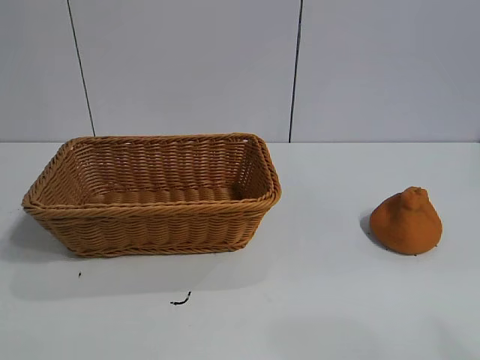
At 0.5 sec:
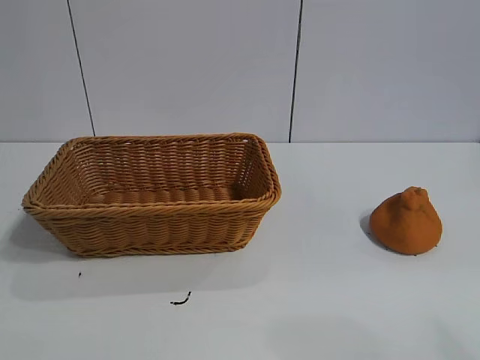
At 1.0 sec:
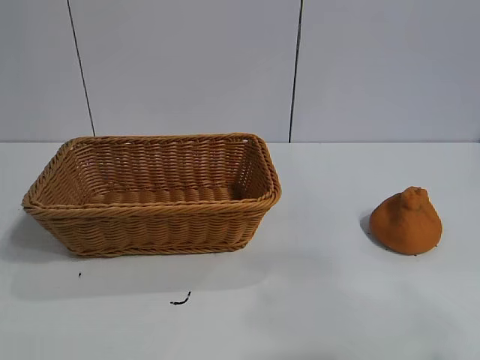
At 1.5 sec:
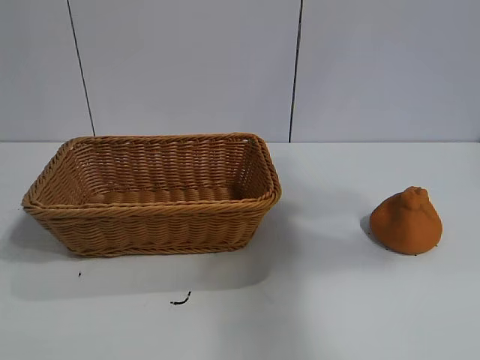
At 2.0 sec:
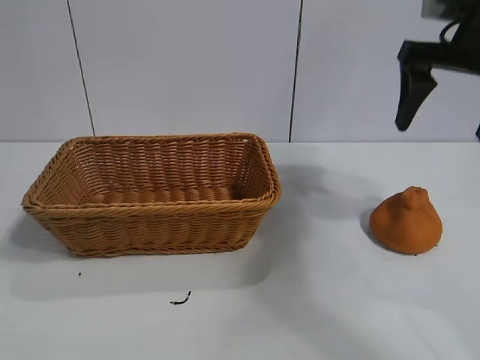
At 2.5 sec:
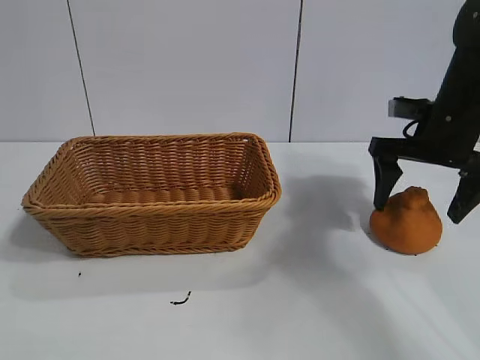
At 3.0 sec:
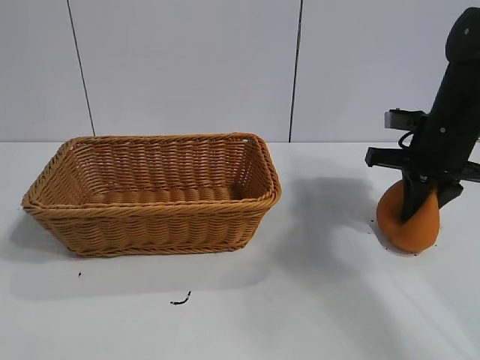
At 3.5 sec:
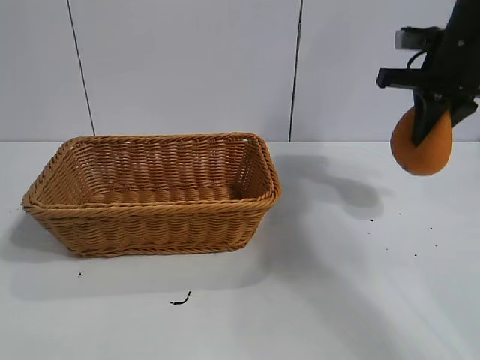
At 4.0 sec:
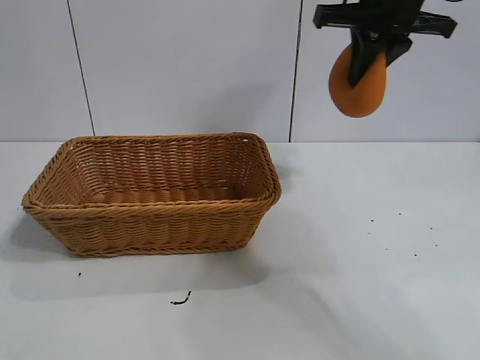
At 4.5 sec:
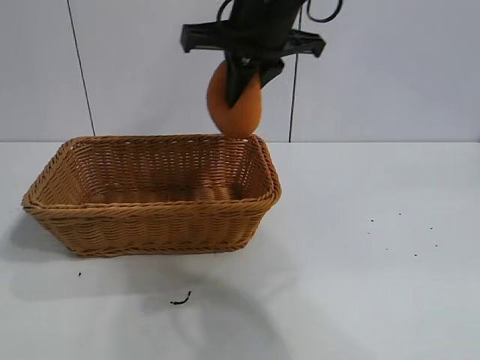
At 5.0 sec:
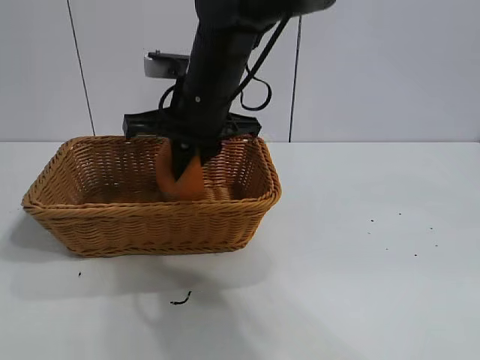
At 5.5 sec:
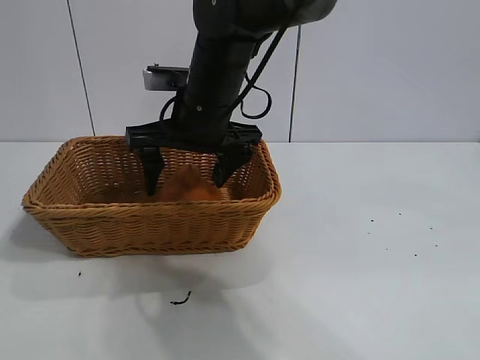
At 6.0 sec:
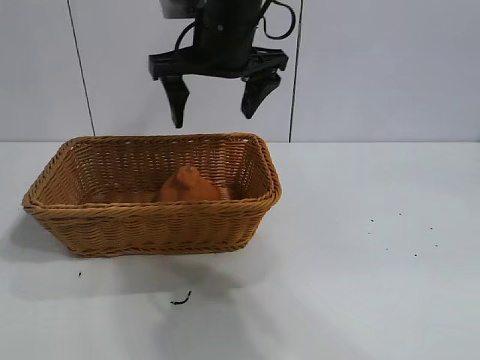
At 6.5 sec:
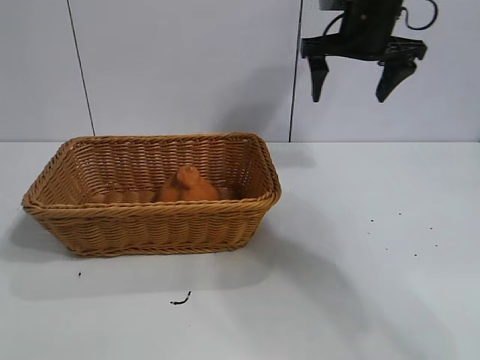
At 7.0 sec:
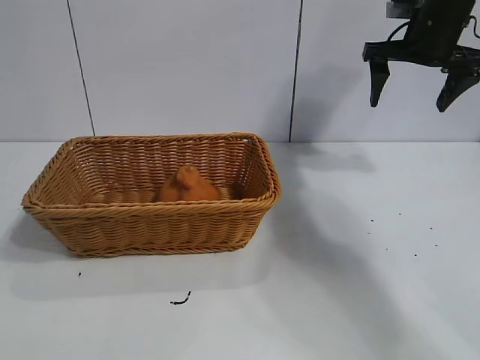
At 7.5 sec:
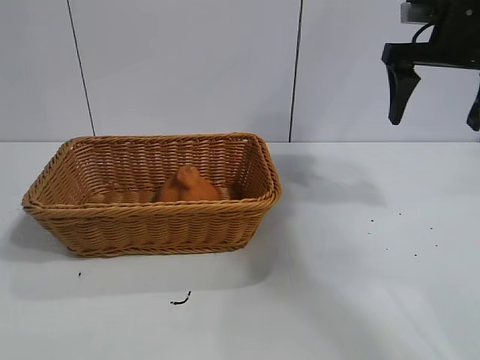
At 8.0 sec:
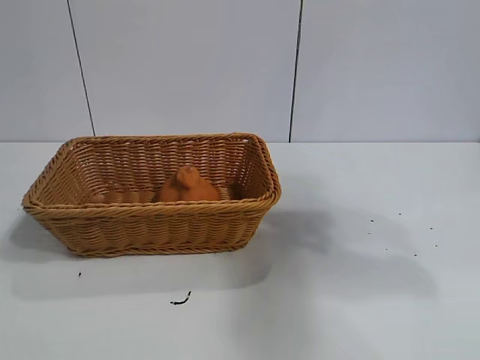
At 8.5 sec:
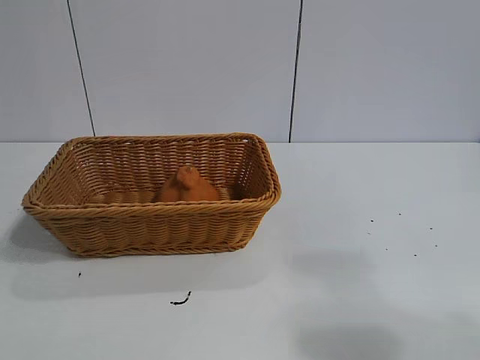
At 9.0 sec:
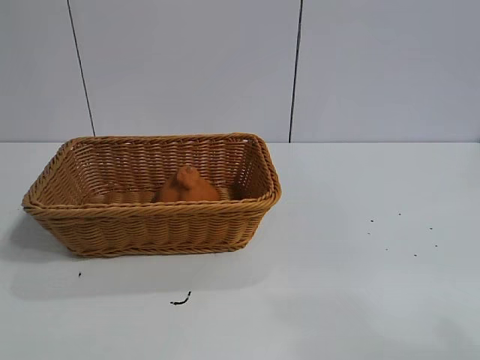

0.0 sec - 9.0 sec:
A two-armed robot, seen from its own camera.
Task of the whole recording: pick up the orange and put it into the basket.
Step, 1.0 sec - 2.5 sec: Grasp the orange with right gripper.
Step, 3.0 sec - 5.5 sec: Place the orange in the basket with right gripper.

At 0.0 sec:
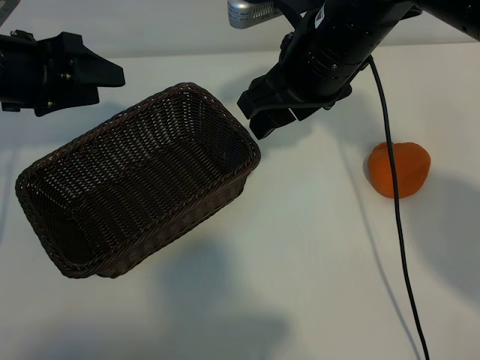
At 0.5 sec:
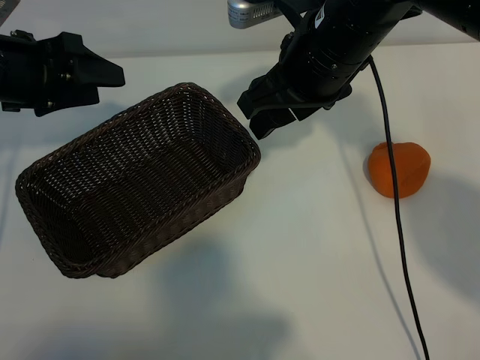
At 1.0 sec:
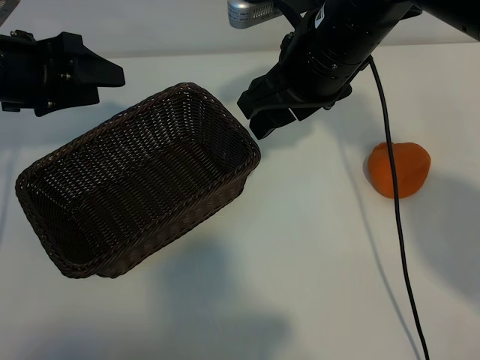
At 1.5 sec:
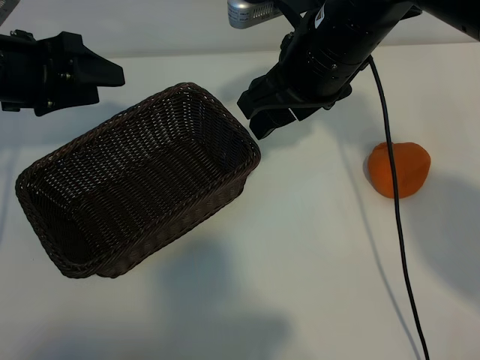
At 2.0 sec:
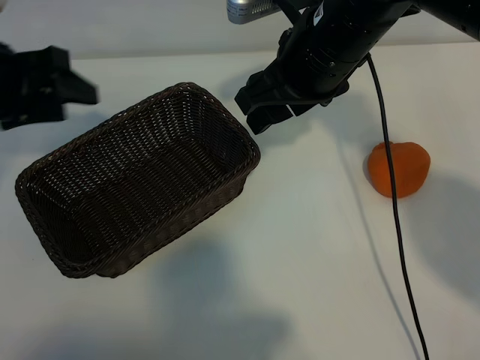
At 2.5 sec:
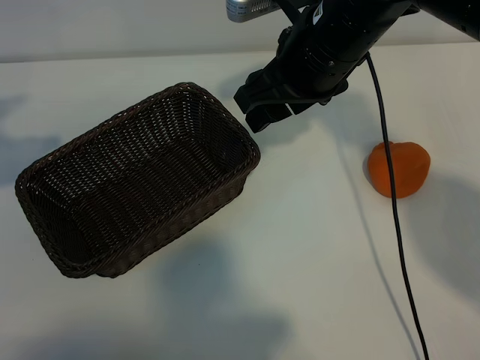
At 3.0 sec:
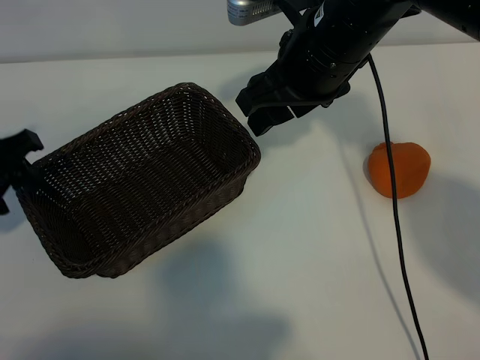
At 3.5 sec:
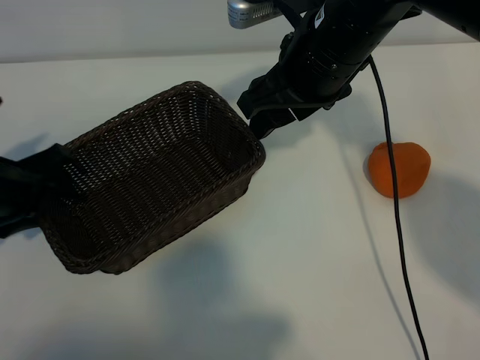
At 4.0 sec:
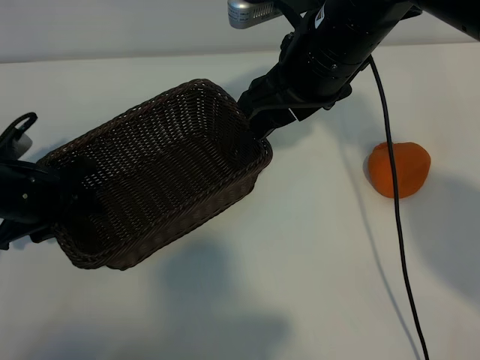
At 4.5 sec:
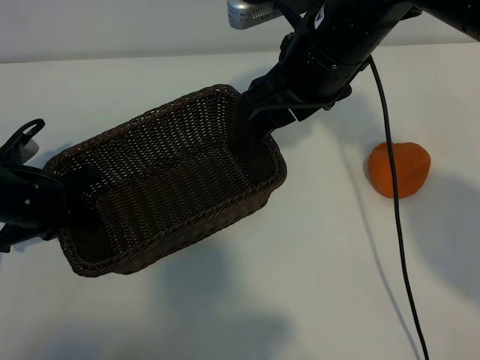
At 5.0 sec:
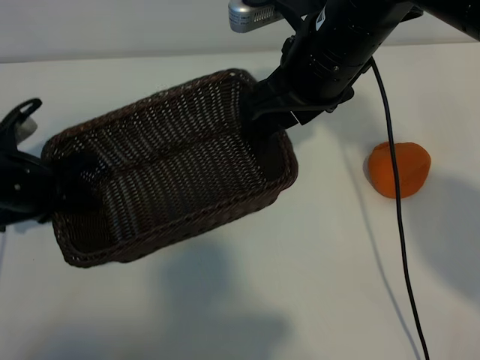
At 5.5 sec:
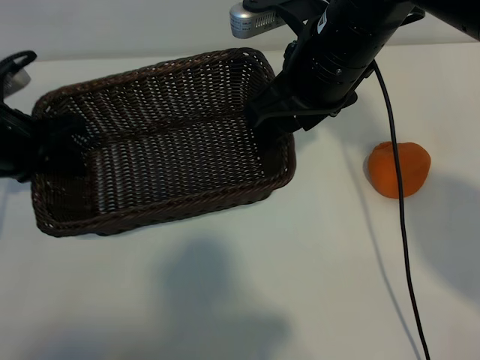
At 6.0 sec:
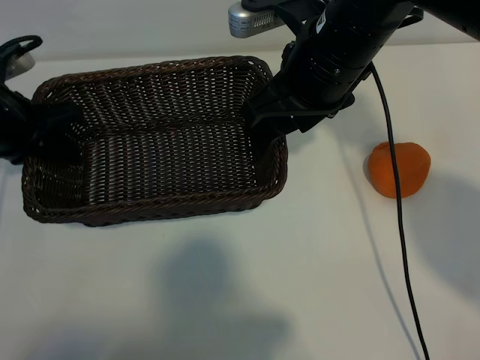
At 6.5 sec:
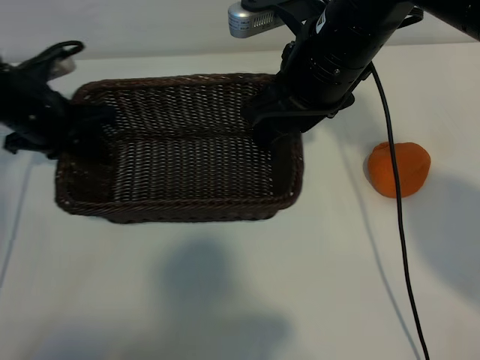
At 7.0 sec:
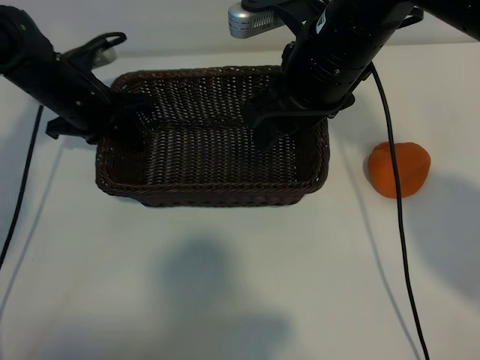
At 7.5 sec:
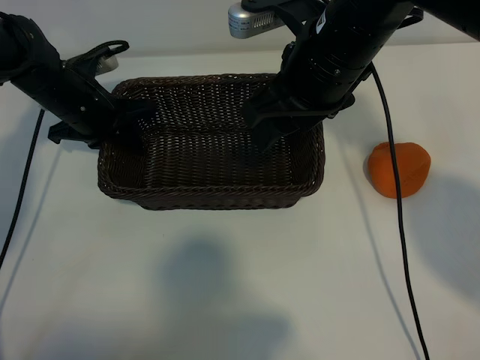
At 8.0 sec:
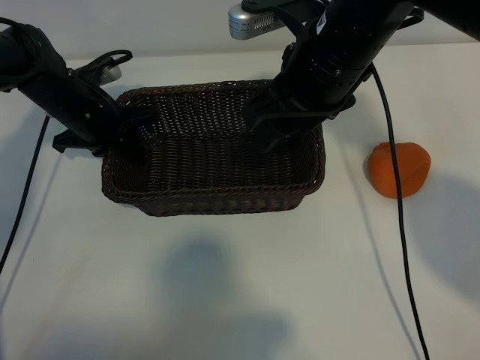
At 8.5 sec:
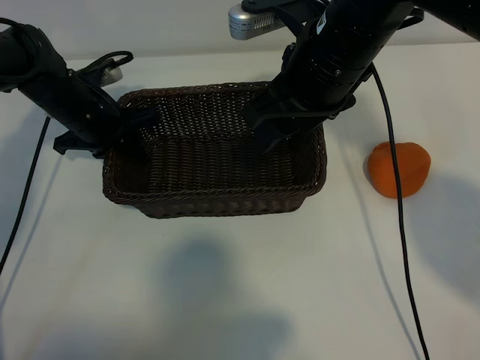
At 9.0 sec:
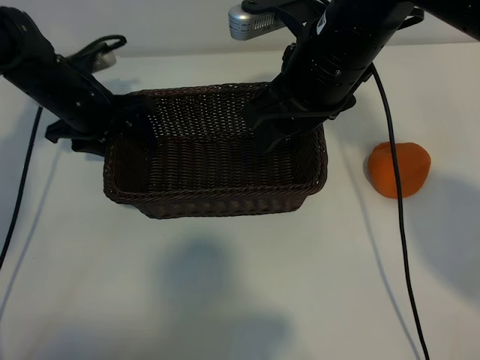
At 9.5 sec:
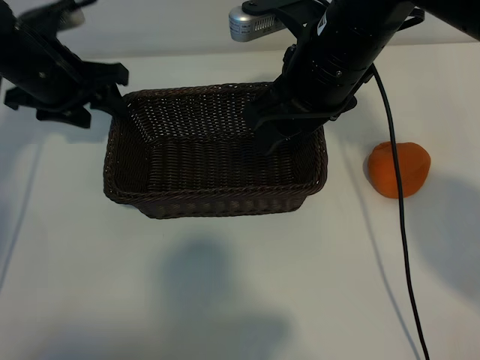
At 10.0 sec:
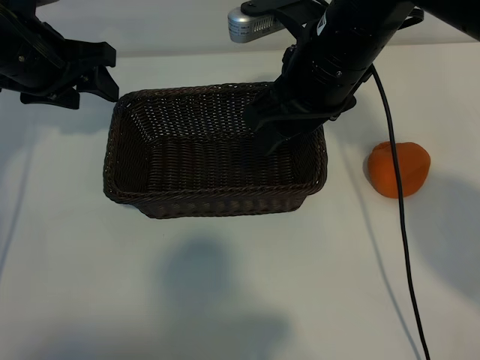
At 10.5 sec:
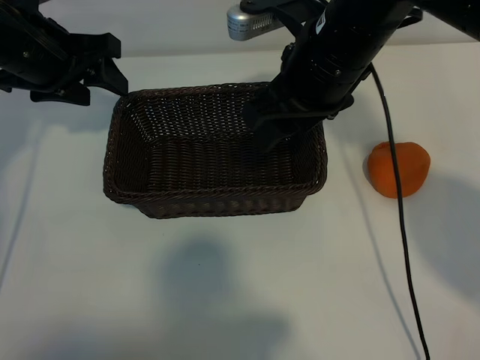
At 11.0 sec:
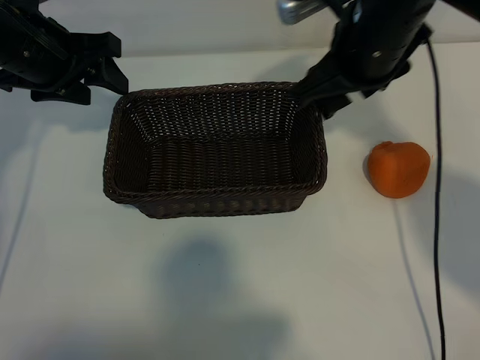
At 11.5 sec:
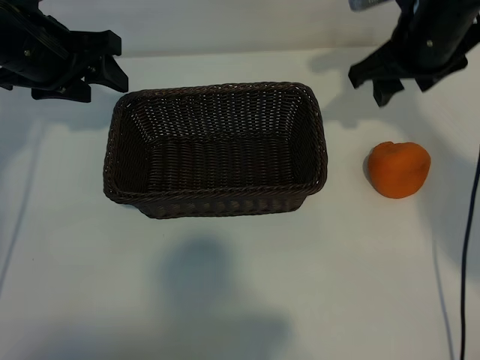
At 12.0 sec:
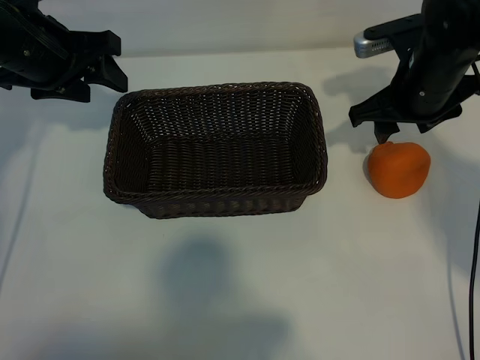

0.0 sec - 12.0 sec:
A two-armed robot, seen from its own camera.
Task of the whole recording: pick up the orange and put it into the basket.
Step, 2.0 sec - 4.0 sec: Grasp the basket with left gripper.
Step, 4.5 sec - 8.5 sec: Place the basket in the center of view with left gripper.

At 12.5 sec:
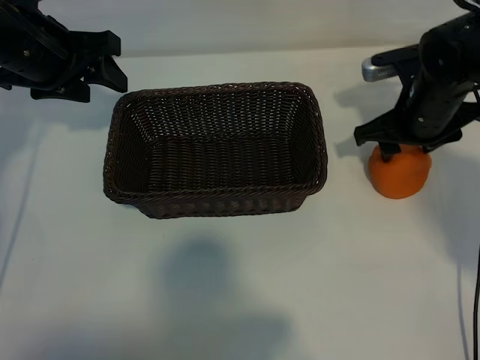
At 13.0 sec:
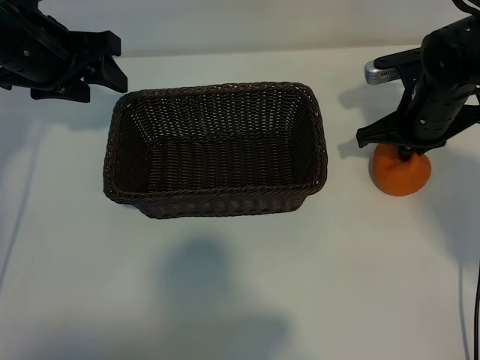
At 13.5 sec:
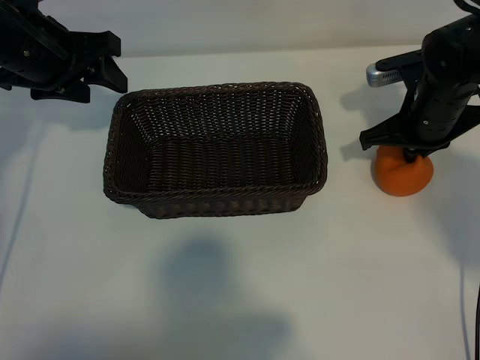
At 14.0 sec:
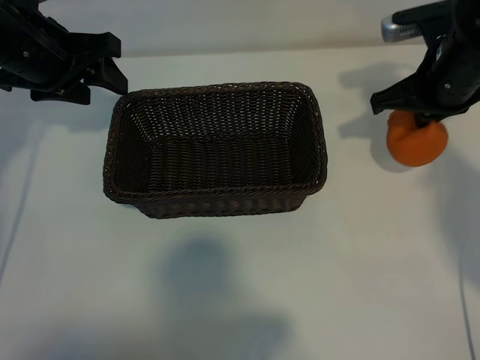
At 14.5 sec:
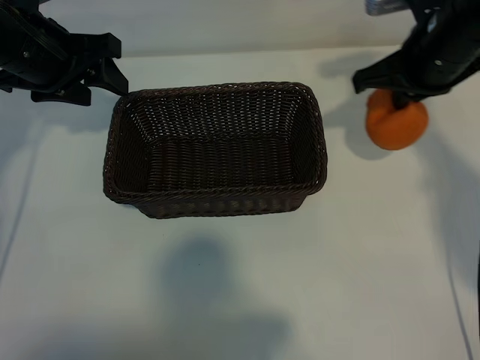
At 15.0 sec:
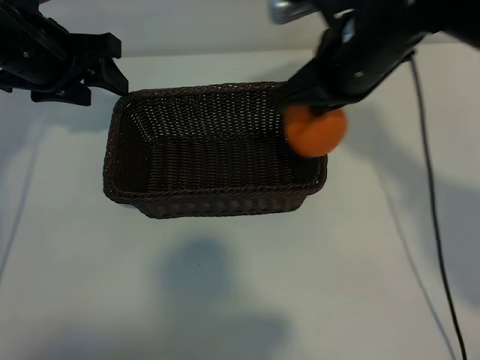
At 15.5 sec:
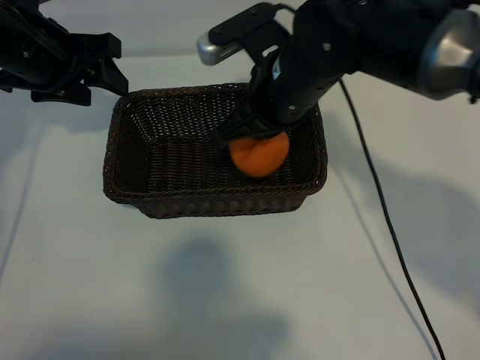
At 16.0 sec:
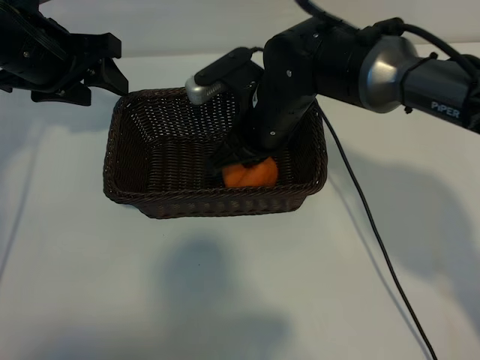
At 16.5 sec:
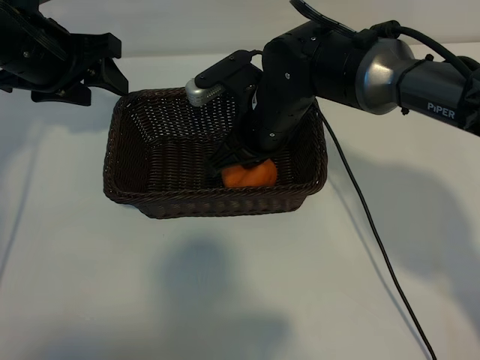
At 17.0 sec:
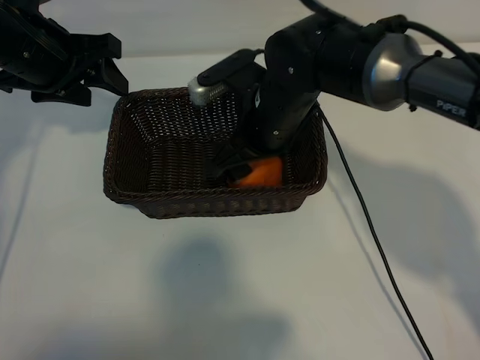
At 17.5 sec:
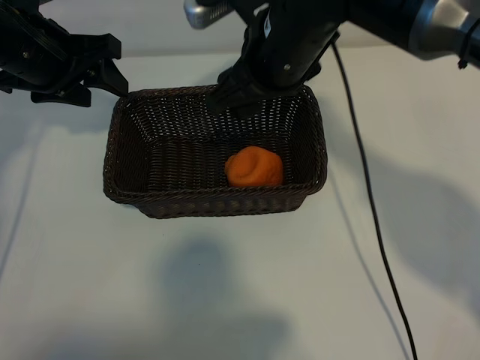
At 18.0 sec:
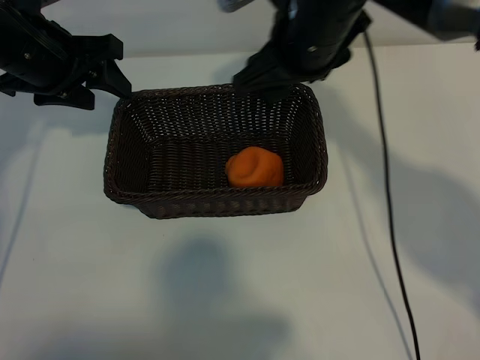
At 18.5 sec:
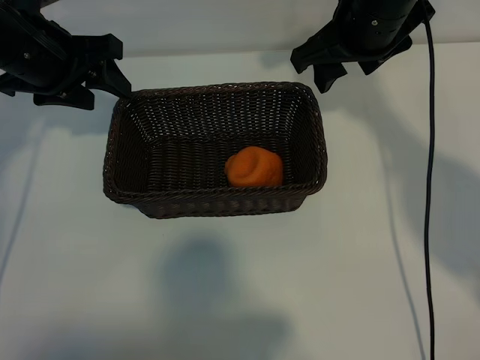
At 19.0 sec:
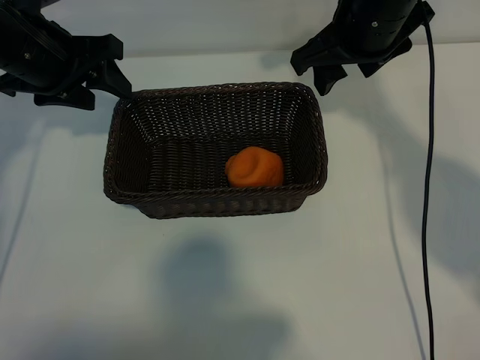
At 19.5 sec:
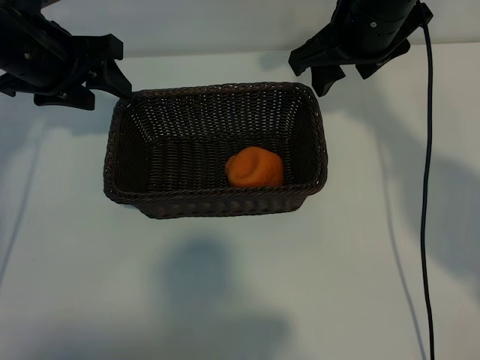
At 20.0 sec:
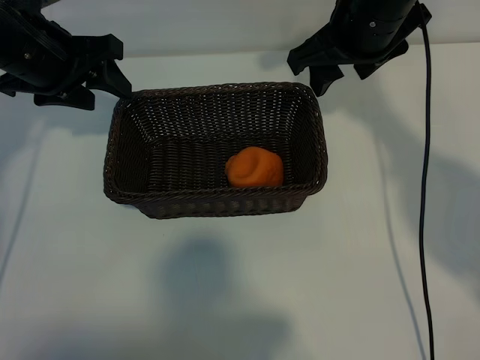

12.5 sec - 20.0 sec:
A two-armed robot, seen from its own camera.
Task of the whole recording: pick up the orange and put it into the basket.
Step, 13.5 sec - 17.0 sec: Place the orange in the basket with right gripper.
